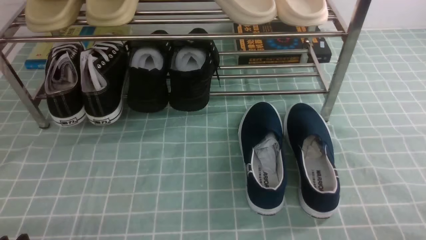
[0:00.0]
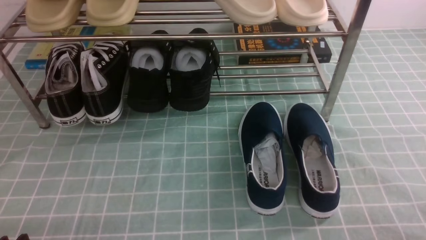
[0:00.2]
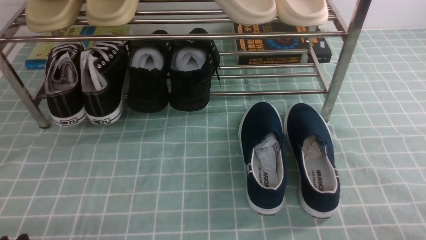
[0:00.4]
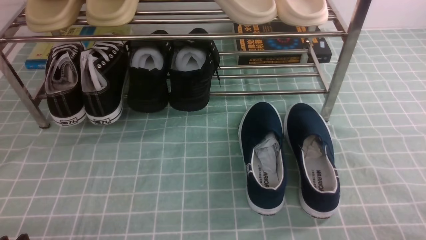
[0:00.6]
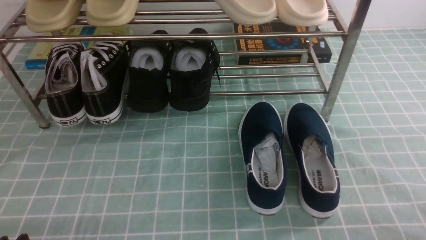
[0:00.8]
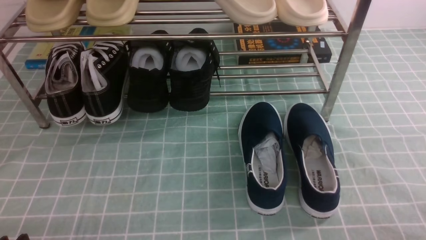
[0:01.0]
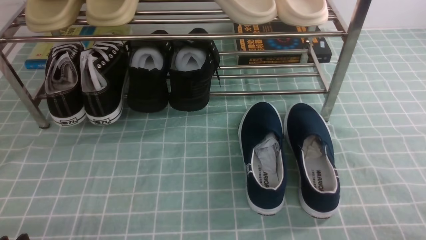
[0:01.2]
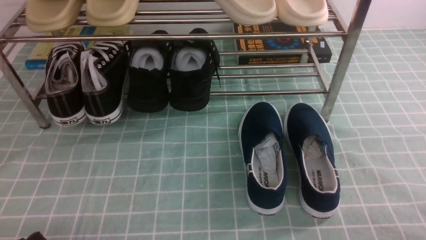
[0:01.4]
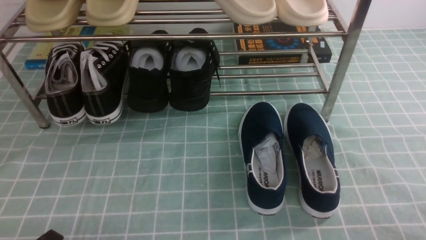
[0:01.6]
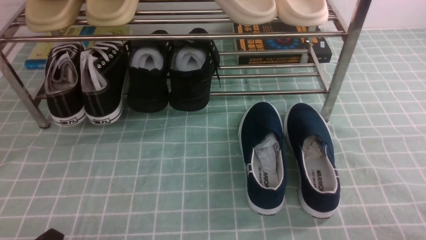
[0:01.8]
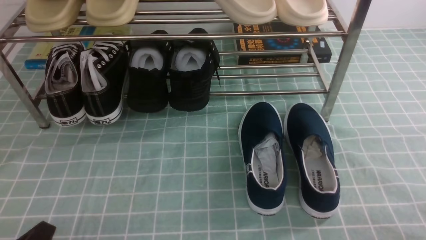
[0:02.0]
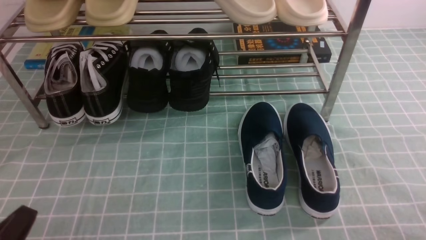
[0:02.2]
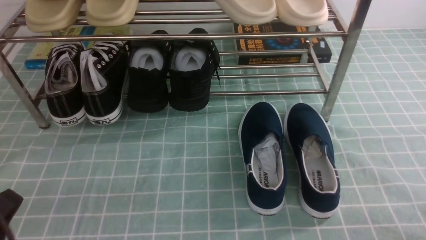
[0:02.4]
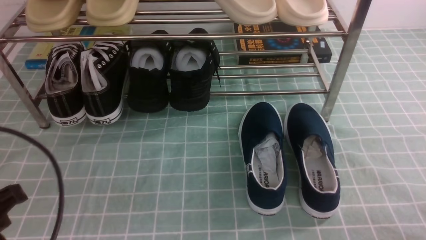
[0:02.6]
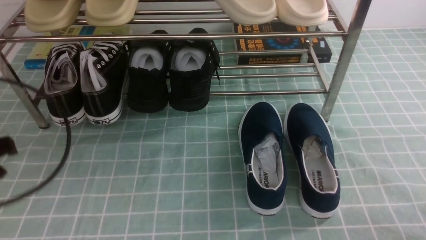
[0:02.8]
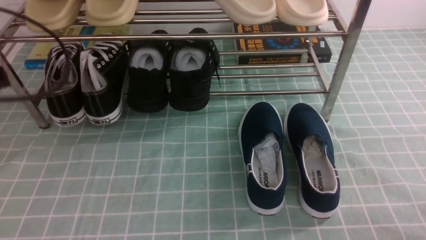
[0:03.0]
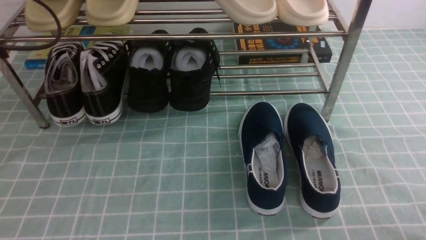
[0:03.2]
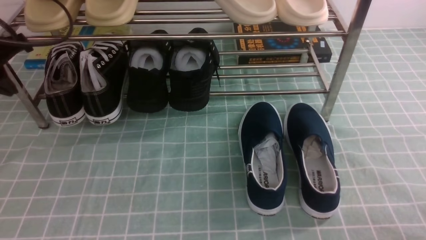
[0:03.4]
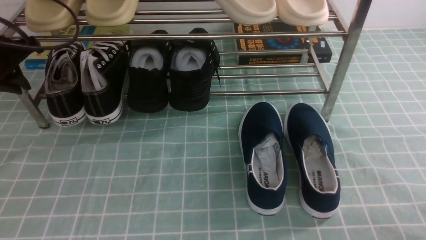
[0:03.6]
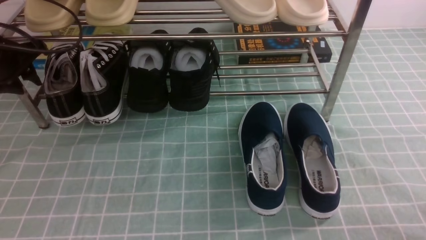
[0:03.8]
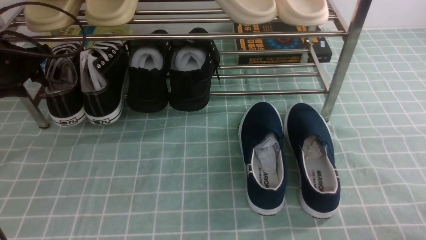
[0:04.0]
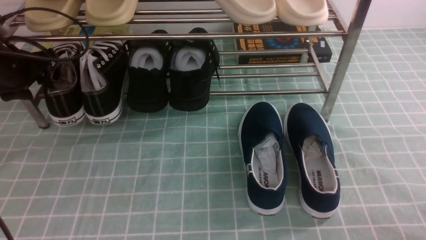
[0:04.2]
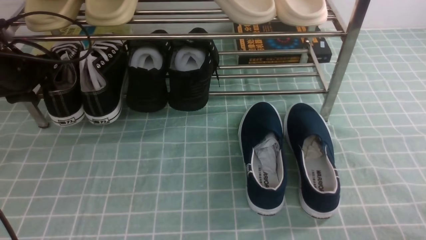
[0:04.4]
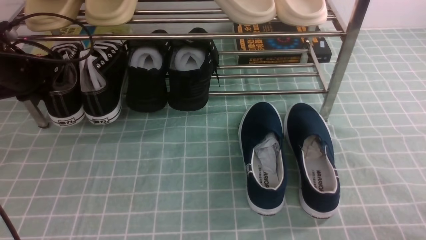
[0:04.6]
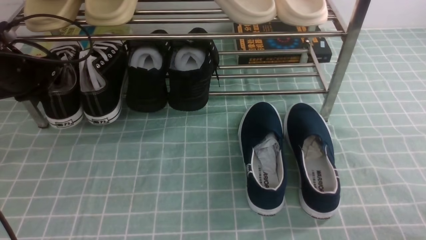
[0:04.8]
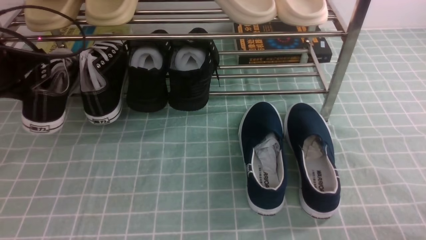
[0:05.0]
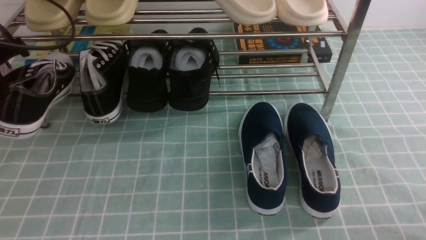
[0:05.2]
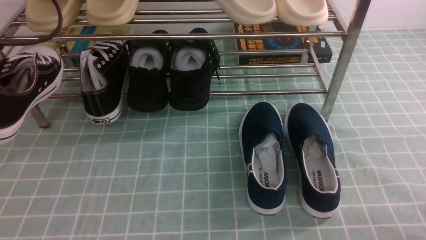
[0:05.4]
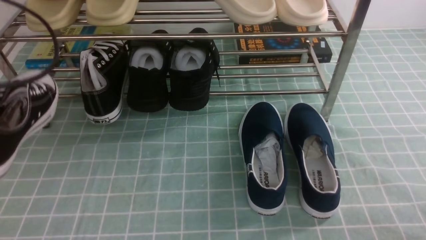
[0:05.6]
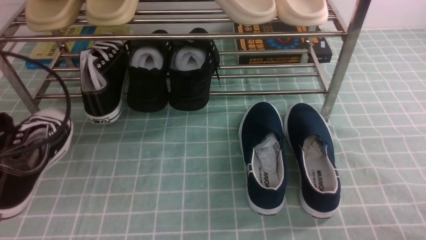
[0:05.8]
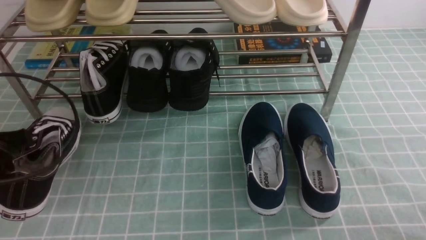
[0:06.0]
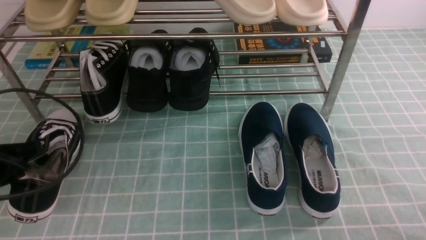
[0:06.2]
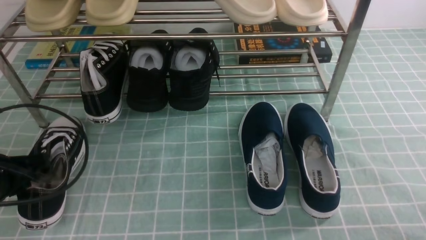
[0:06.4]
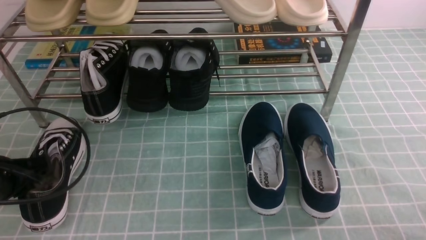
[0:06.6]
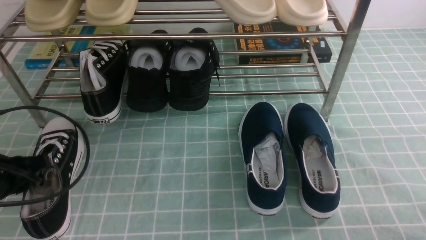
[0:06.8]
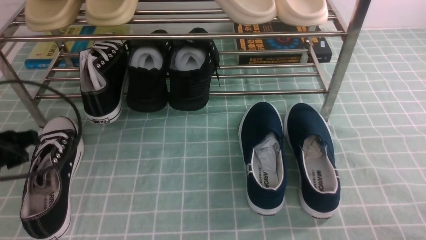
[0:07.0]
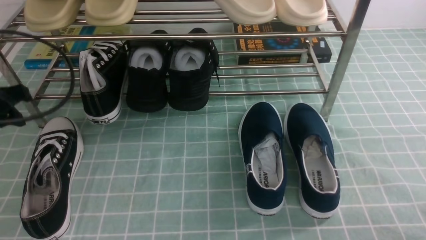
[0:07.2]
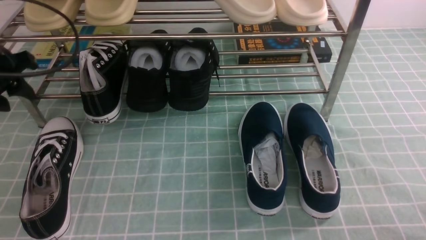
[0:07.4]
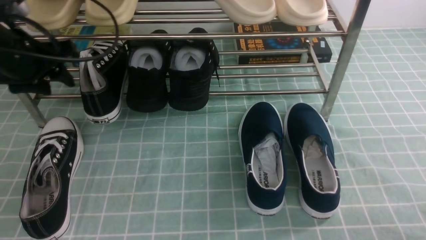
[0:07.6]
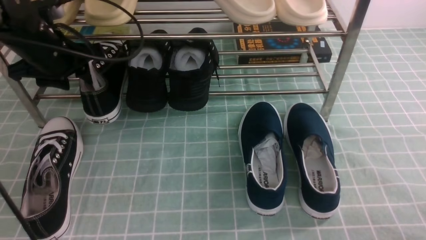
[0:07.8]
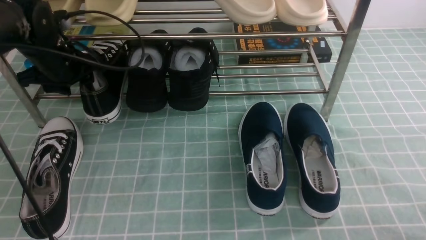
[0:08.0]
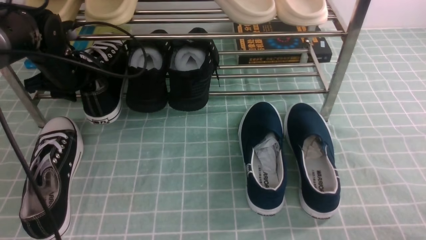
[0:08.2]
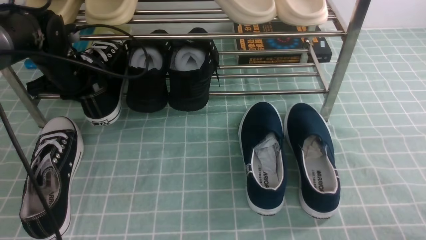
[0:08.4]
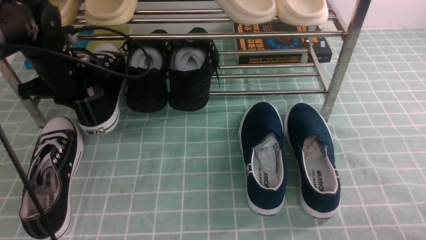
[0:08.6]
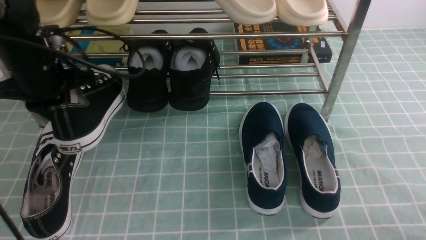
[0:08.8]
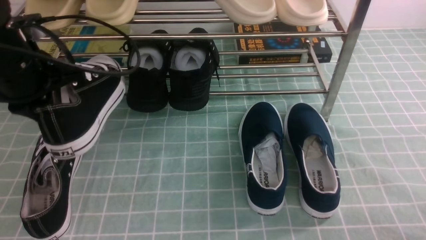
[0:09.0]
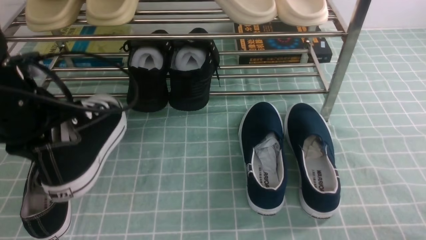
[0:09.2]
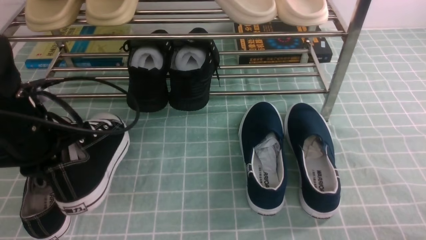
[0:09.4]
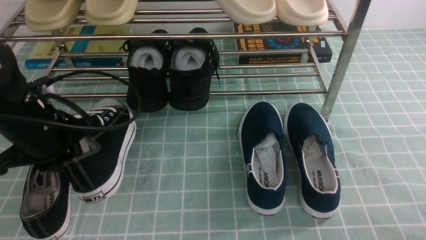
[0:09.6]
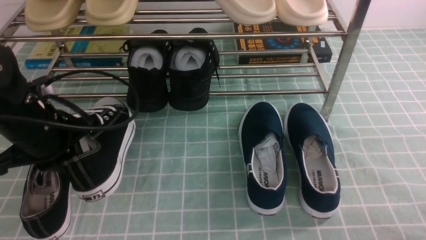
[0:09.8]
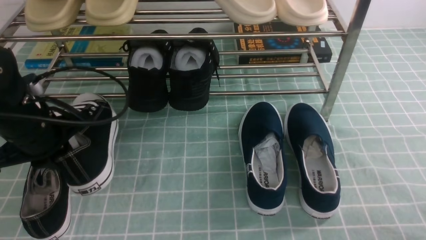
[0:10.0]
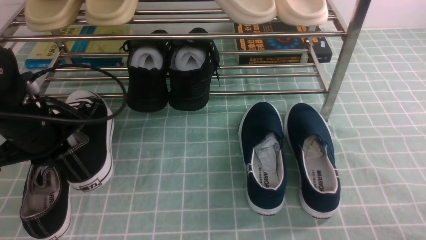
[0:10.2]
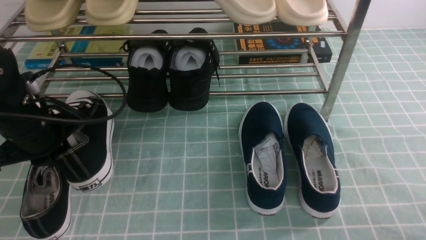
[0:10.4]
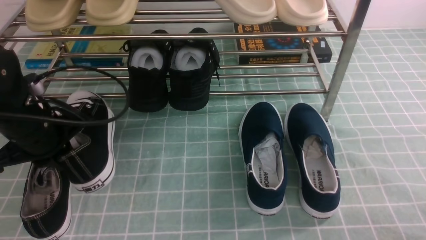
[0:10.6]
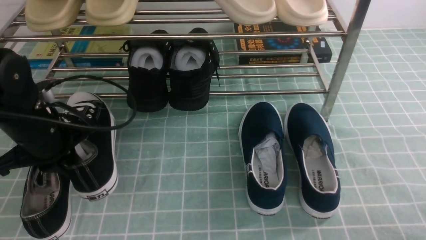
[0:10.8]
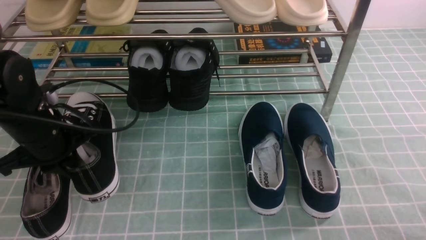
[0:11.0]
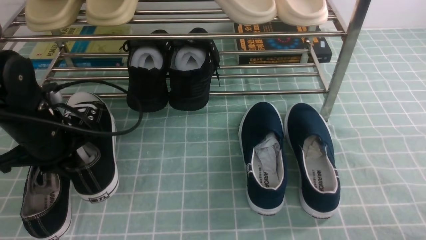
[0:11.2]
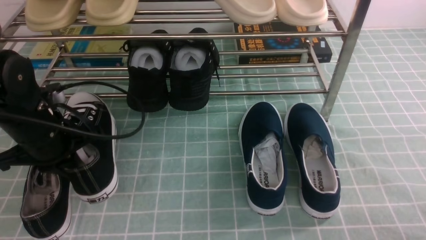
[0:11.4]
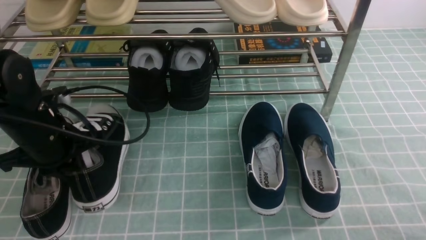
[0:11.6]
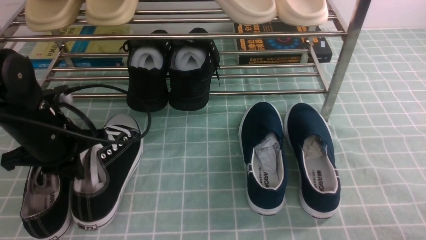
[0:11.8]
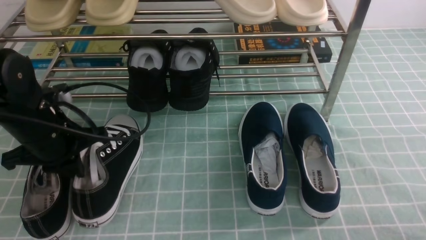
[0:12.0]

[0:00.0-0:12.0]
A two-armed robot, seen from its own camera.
Step, 0:00.0 to 0:04.6: use the left arm to clamp a shoe on the left side of the shoe rack.
Step, 0:04.8 to 0:07.0: Use your left arm to remove the clamped shoe from the shoe rack and put it down.
Step, 0:07.4 to 0:08.8: use the left arm to clamp a shoe on the left side of the shoe rack.
0:01.6 to 0:03.0: The left gripper moves forward and upward, about 25 cm, and closes up.
0:03.0 to 0:04.4: The left gripper is displaced forward and downward by some 20 cm, and opens.
0:04.4 to 0:06.0: The left gripper travels backward by approximately 20 cm, and closes.
0:06.0 to 0:07.6: The left gripper heads forward, covering roughly 15 cm, and opens its fingers.
0:07.6 to 0:09.0: The left gripper closes its fingers.
0:09.0 to 0:10.4: The left gripper is displaced downward by some 5 cm.
0:10.4 to 0:12.0: The grippers make only small movements.

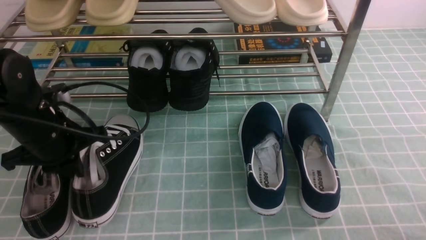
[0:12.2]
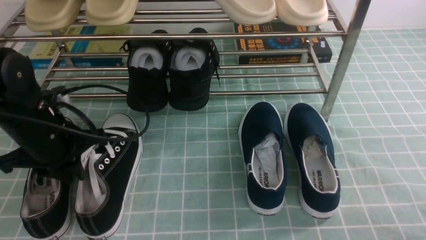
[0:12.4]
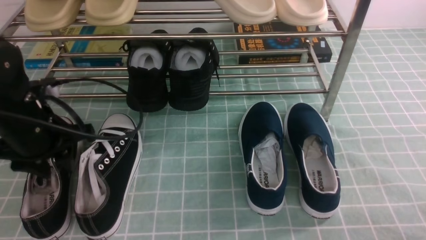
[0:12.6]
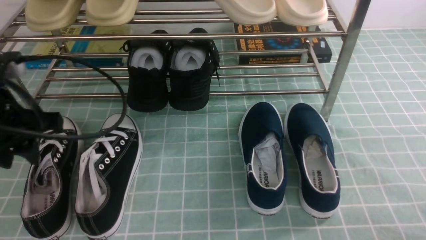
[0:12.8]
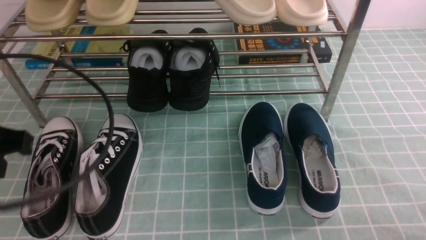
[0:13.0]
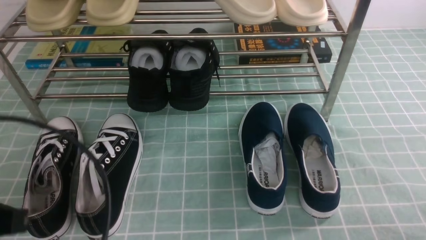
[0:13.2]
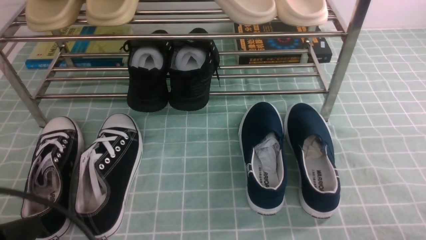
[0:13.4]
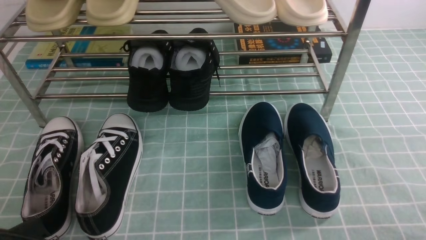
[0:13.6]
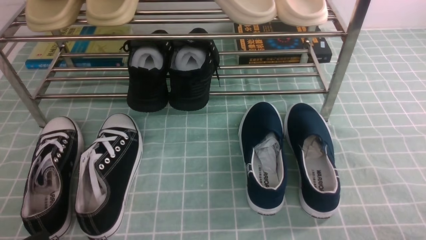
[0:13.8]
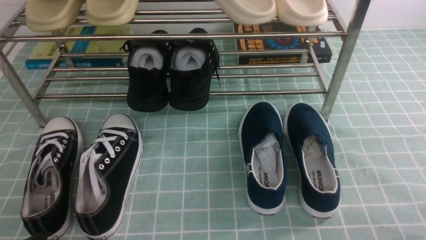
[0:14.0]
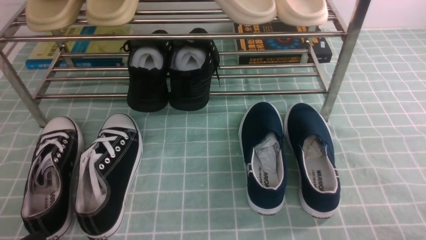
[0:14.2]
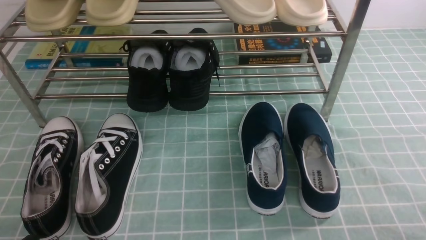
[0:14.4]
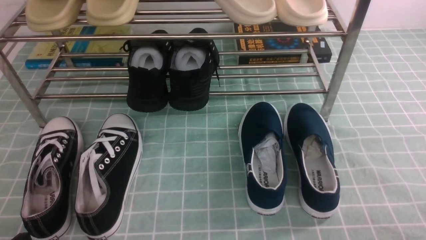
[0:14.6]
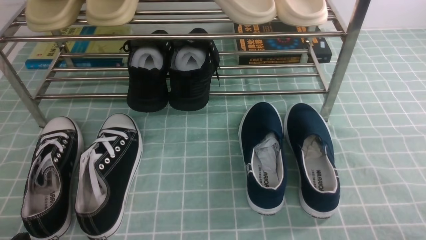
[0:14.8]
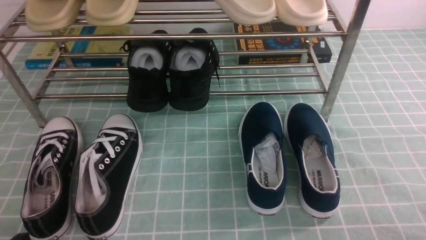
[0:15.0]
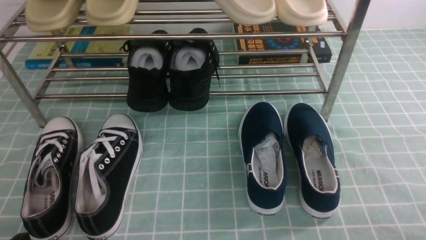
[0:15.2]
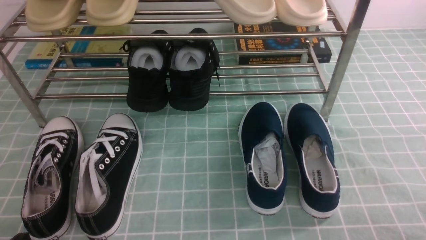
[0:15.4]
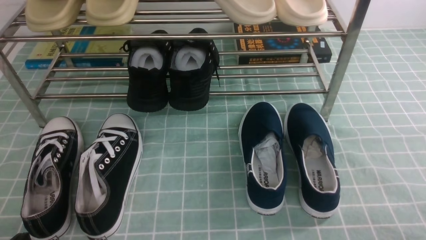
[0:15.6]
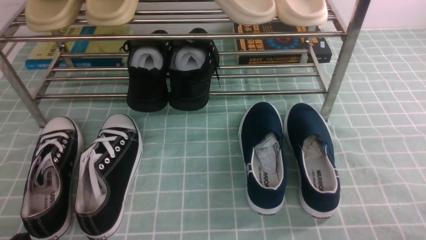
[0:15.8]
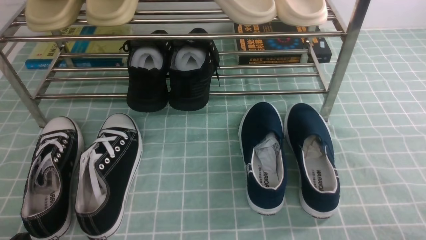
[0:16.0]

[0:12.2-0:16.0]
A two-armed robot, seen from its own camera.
0:12.2 to 0:13.4: The left gripper moves backward, about 20 cm, and opens, then closes once more.
0:13.4 to 0:14.8: The left gripper travels downward by roughly 10 cm.
0:14.8 to 0:16.0: Neither gripper changes place.
